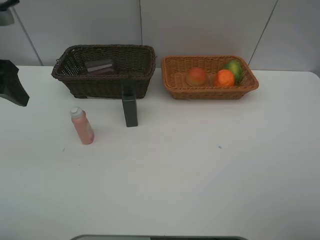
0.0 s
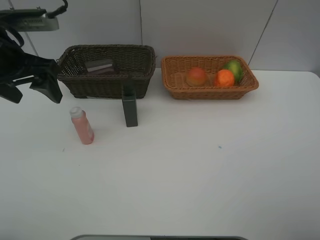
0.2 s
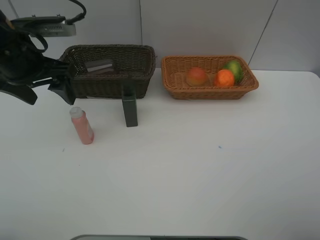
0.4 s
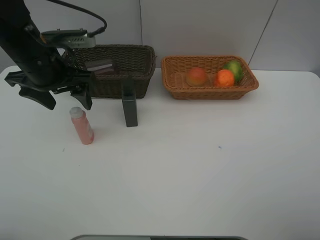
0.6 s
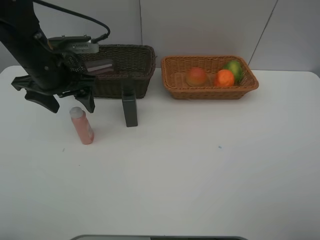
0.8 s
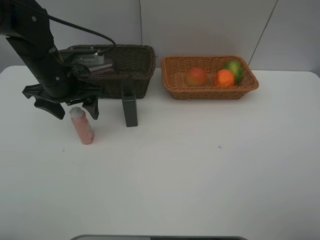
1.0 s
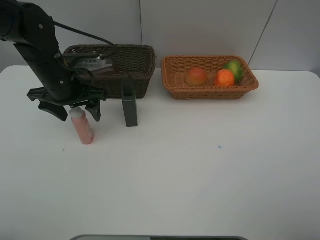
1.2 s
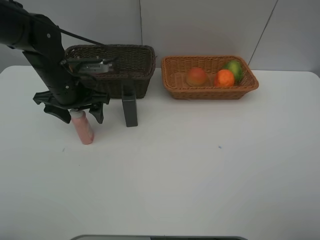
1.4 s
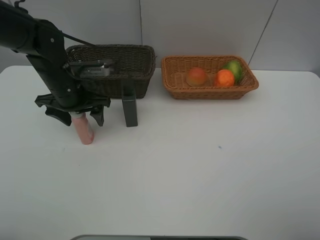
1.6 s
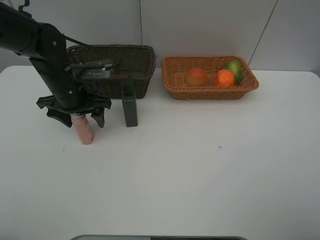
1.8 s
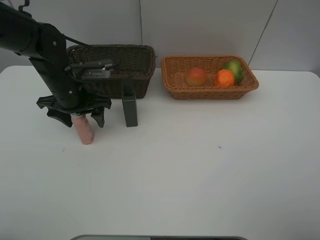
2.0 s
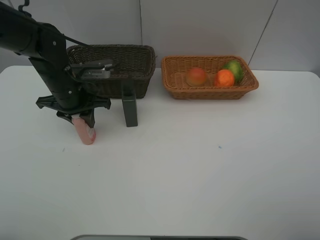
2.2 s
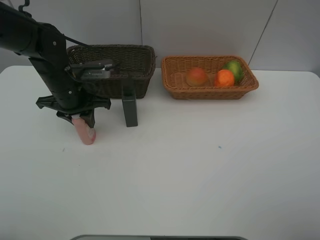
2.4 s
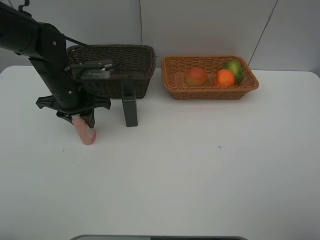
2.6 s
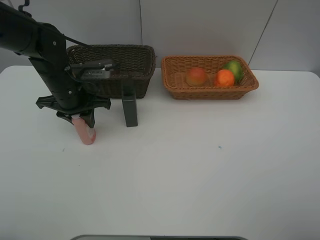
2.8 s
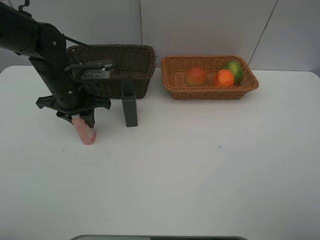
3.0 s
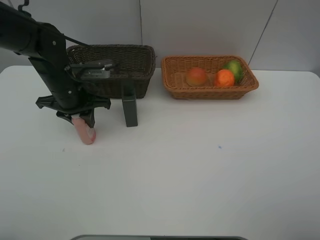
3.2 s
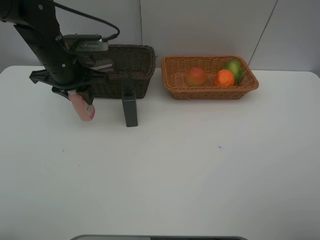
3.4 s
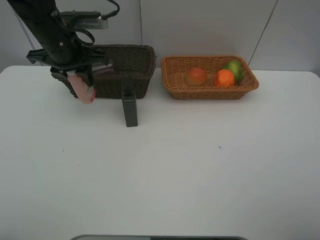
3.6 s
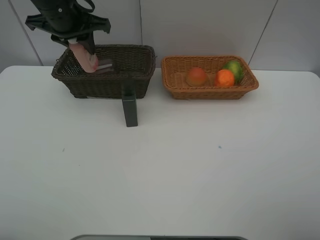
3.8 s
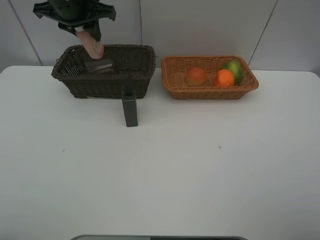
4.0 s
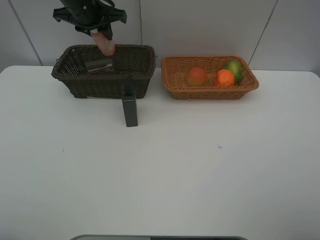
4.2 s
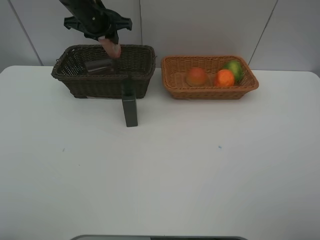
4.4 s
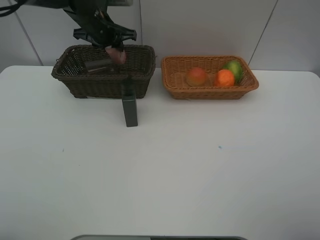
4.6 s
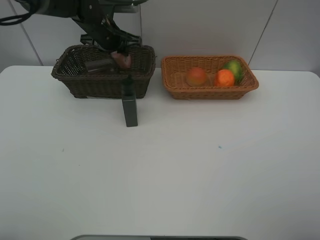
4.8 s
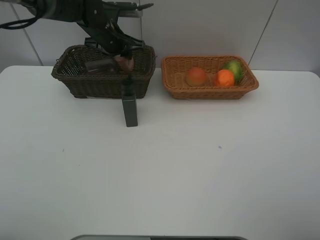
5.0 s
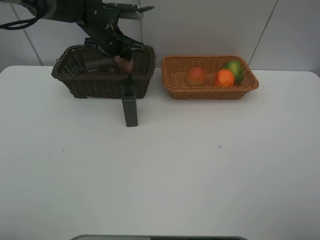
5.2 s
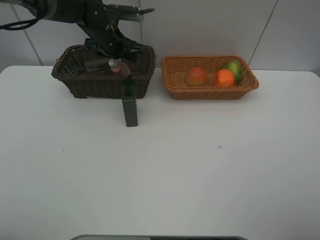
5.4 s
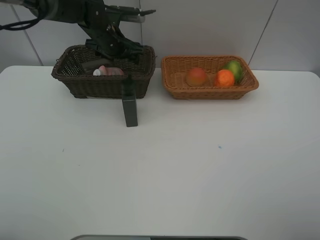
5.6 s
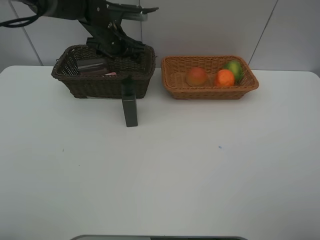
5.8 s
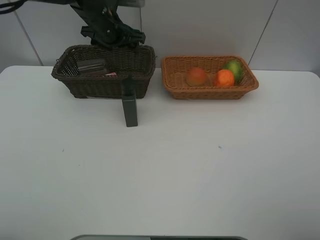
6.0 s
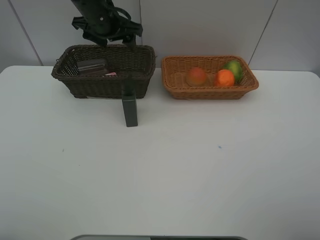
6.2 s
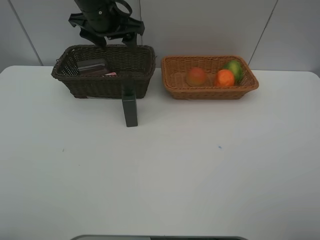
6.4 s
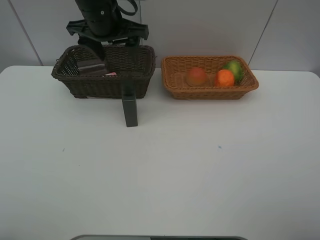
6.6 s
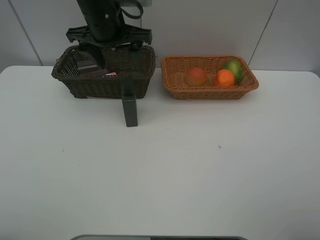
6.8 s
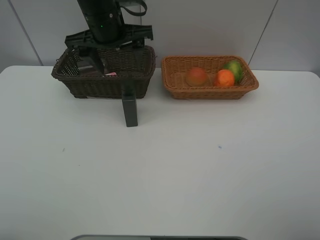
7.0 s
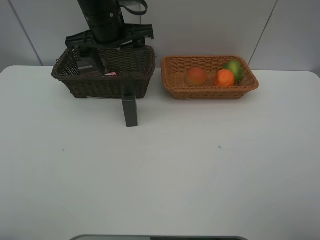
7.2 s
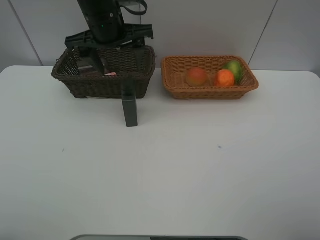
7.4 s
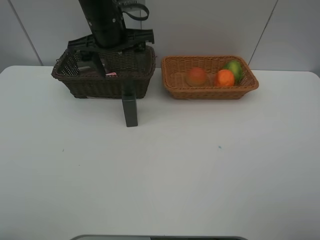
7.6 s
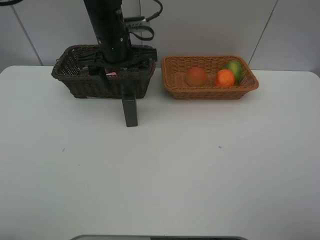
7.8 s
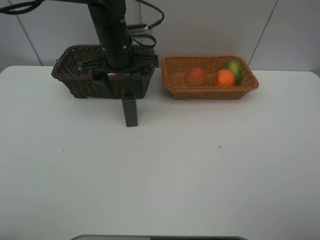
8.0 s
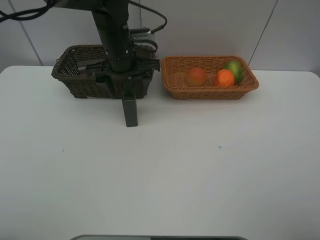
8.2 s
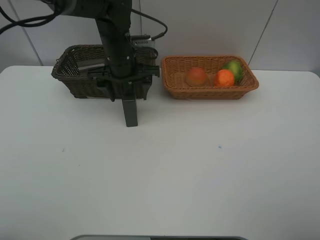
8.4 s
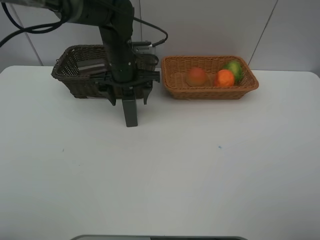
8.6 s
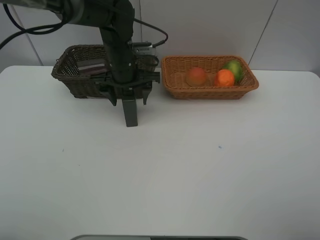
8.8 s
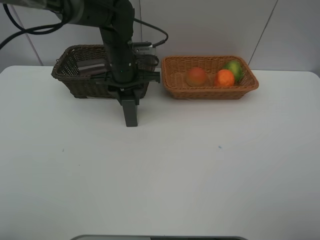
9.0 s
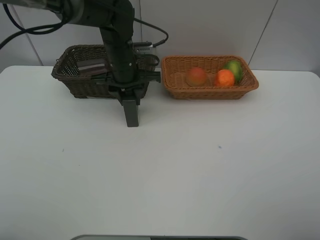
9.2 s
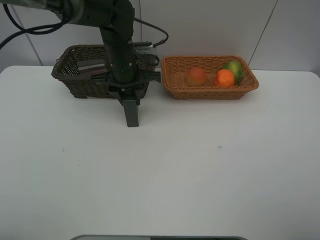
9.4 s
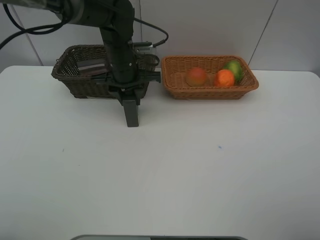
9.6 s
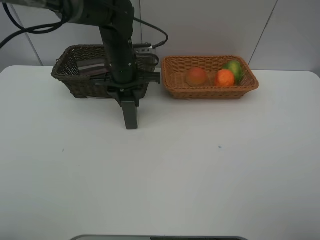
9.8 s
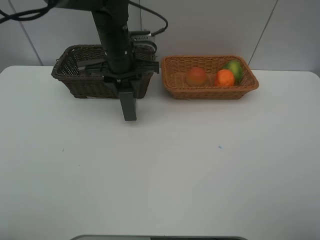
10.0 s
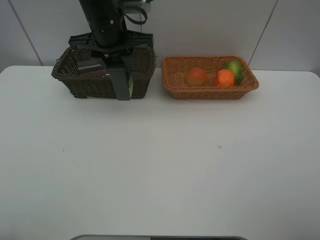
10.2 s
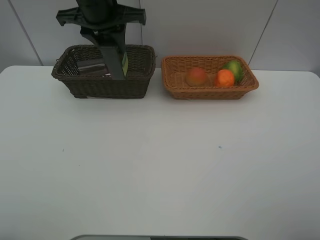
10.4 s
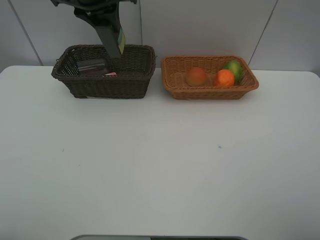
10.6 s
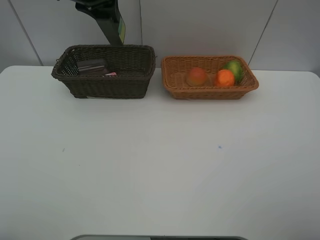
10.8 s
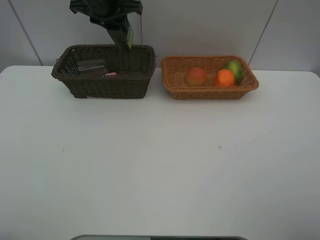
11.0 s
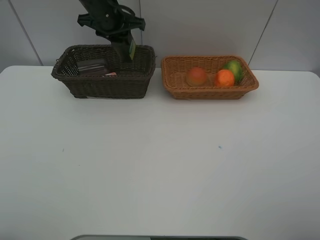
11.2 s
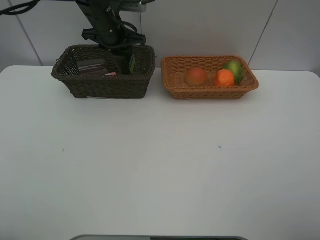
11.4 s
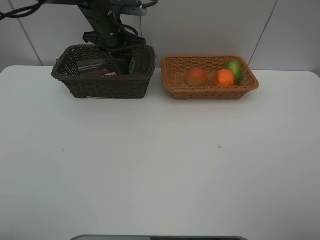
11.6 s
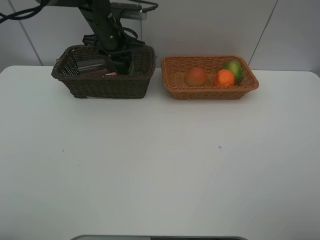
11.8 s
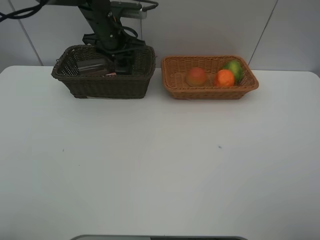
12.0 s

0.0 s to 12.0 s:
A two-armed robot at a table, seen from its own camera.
Task of the whole recording: place multiple objects separately in different baskets.
0.0 to 1.6 s: The left gripper shifts approximately 20 cm downward, forward and to the right.
1.6 to 3.0 s: The left gripper closes up.
3.0 to 4.4 s: The left gripper goes roughly 15 cm forward and upward.
4.4 to 6.0 s: The left gripper opens up.
6.0 to 7.6 s: The left gripper travels backward by some 10 cm.
7.6 to 9.0 s: The left gripper shifts some 10 cm downward, and closes.
9.0 to 10.4 s: The left gripper heads upward, covering roughly 15 cm.
10.4 to 12.0 s: The left gripper heads downward and forward, covering roughly 15 cm, and opens its fingers.

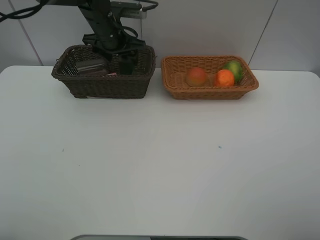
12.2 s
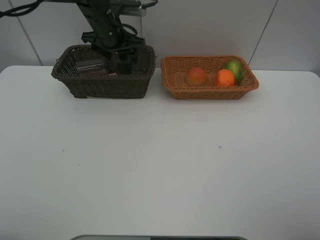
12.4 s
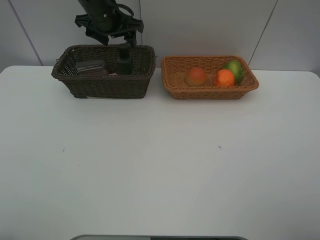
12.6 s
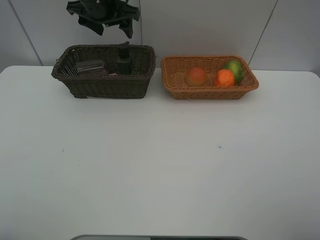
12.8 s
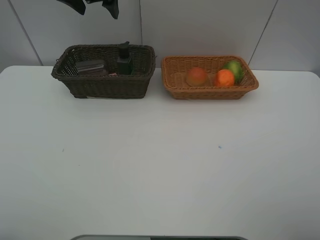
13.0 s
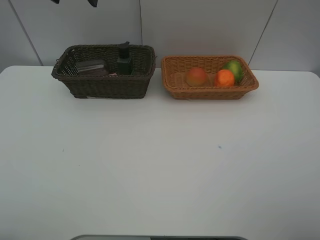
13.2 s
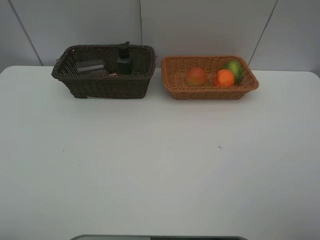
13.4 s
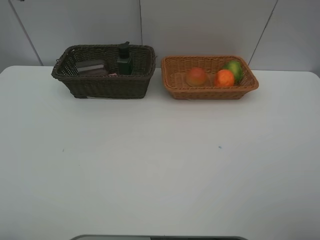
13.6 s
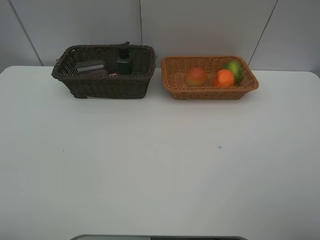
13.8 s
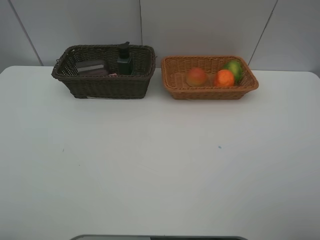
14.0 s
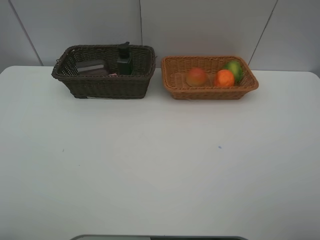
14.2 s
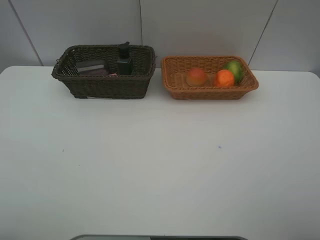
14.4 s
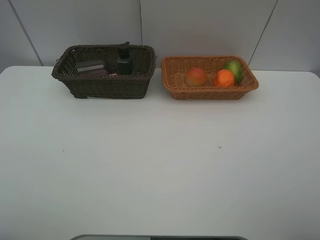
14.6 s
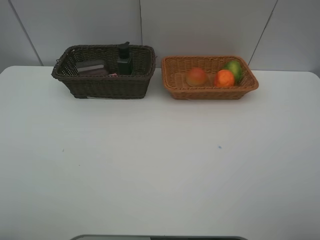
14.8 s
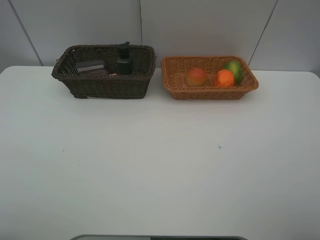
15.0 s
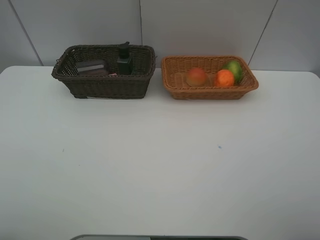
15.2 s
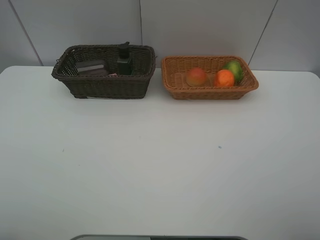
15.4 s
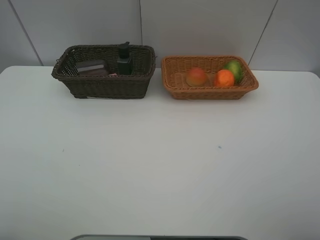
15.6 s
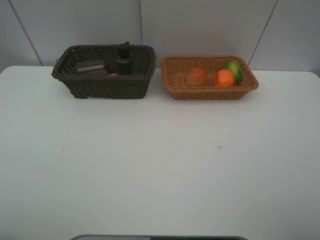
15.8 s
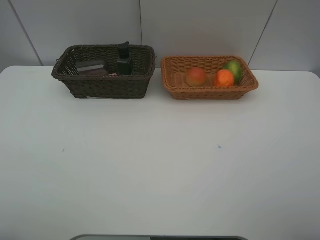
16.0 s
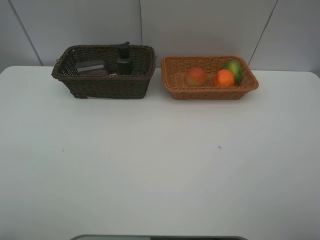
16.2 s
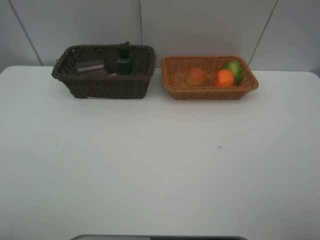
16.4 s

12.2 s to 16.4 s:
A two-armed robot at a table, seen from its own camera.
Task of the whole recording: place multiple objects separately in different baskets.
12.2 to 13.6 s: The left gripper travels backward, upward and to the left by roughly 35 cm.

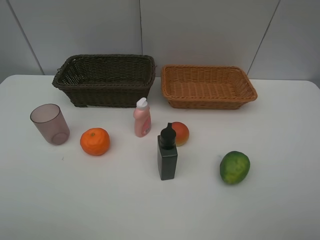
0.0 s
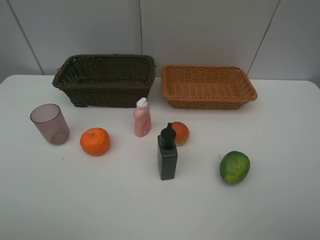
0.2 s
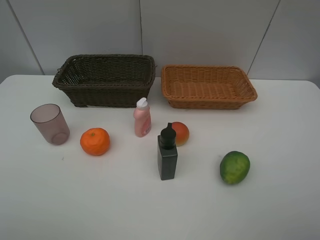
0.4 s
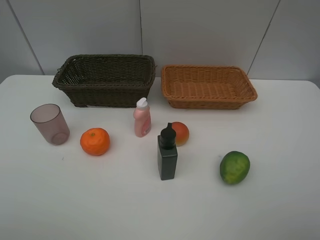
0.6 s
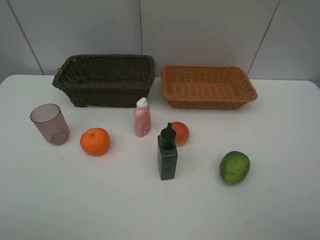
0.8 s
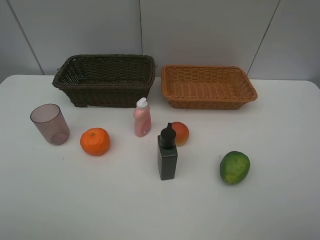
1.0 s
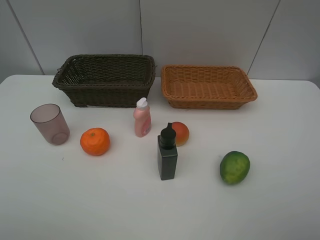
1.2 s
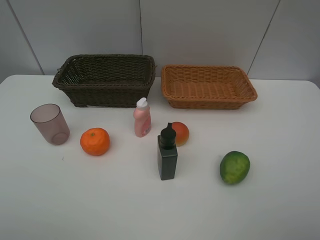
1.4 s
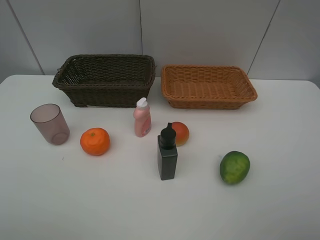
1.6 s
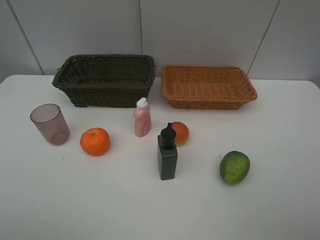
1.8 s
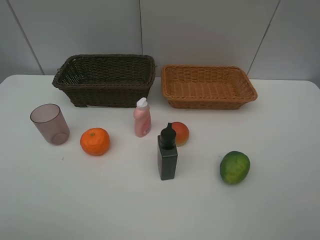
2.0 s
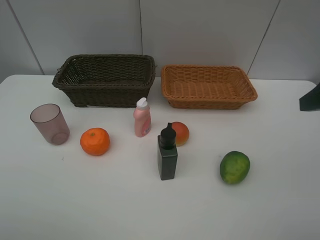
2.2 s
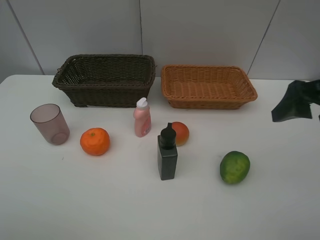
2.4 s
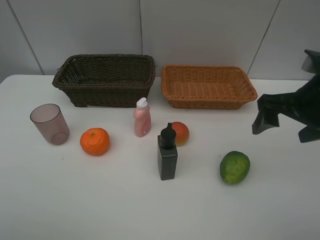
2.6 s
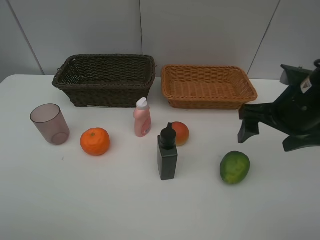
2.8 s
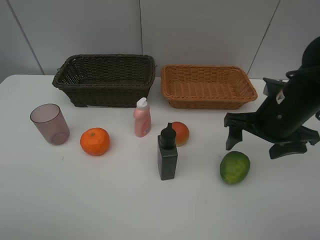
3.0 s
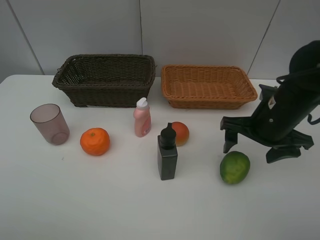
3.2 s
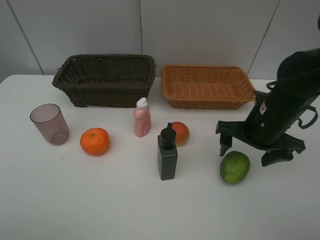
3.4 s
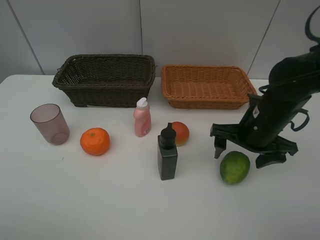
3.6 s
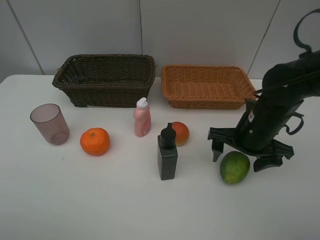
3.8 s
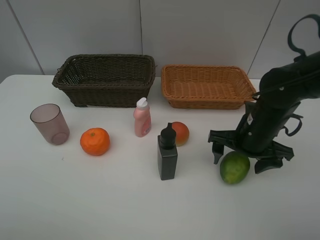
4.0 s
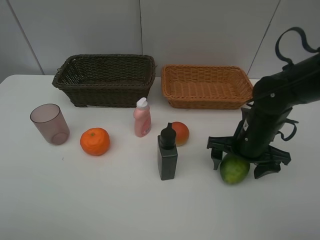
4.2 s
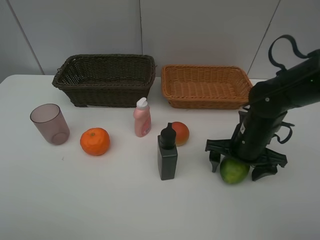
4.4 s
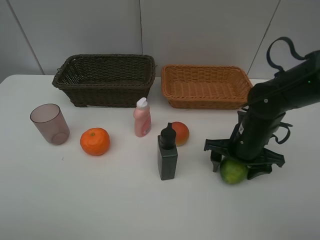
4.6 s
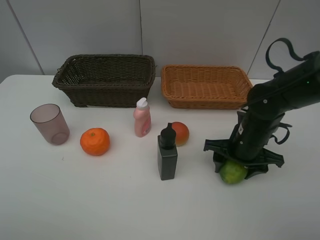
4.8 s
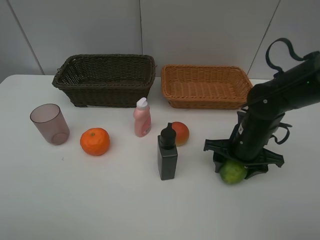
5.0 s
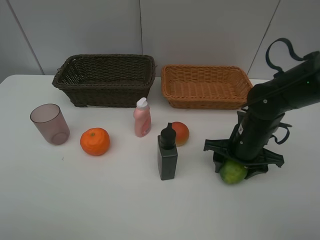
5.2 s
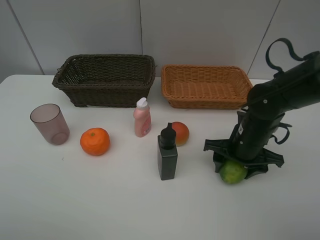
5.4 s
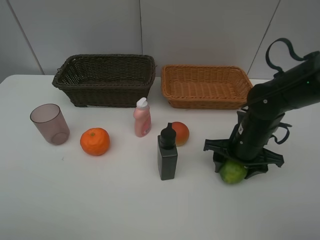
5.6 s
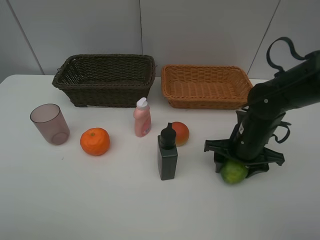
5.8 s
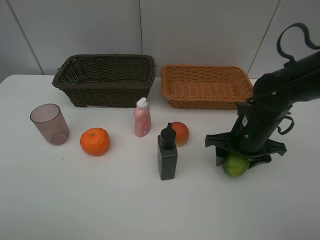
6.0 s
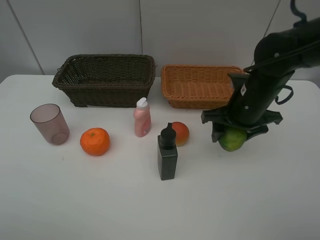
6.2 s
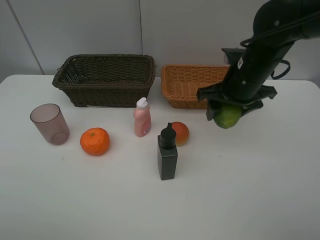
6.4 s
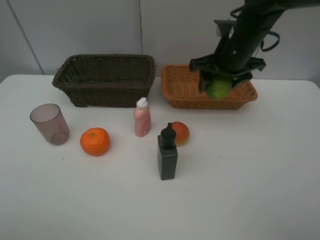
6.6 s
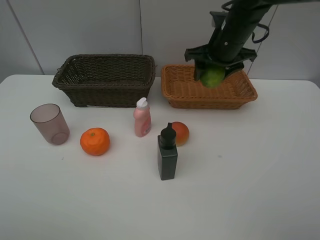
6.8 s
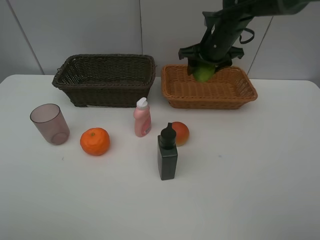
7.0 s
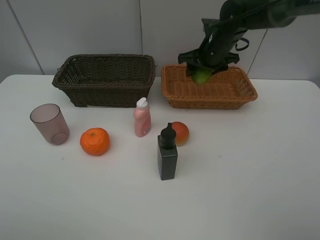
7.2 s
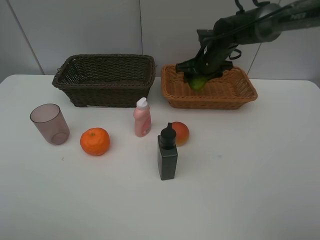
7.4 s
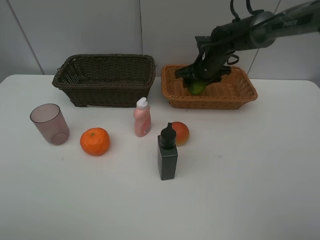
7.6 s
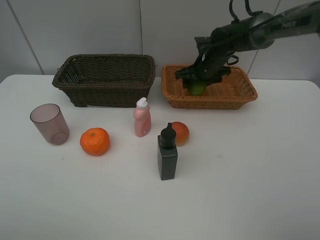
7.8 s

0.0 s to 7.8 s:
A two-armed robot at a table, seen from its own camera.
Task of the whole recording: place multiple objects separately in different baskets.
0.0 to 1.6 s: Both grippers stay put.
1.6 to 3.2 s: The right gripper heads forward, downward and to the left, covering about 25 cm.
3.2 to 4.6 s: The right gripper moves downward, roughly 5 cm.
4.6 to 6.2 s: The right gripper is displaced upward by roughly 10 cm.
6.2 to 7.8 s: The right gripper heads forward, covering roughly 15 cm.
